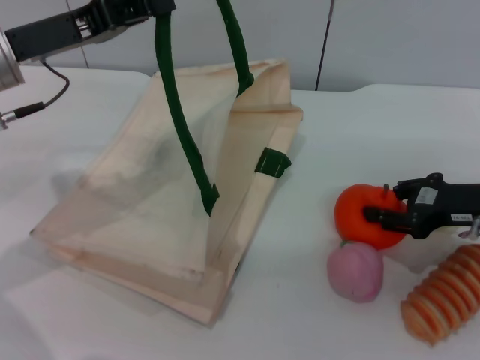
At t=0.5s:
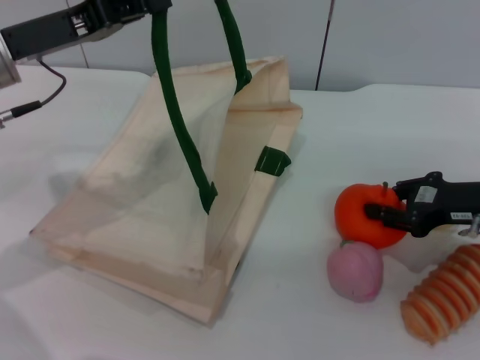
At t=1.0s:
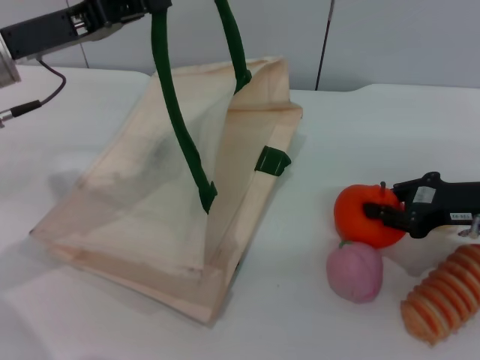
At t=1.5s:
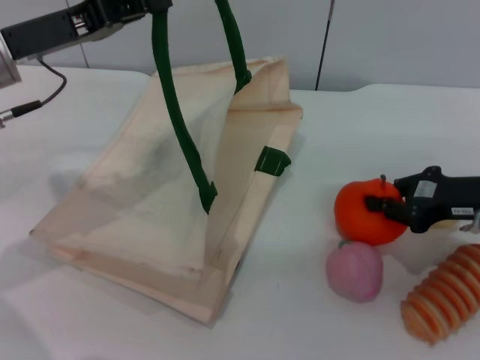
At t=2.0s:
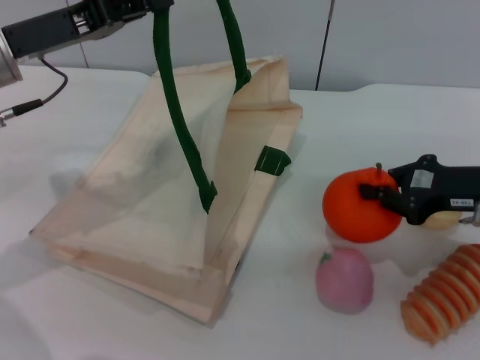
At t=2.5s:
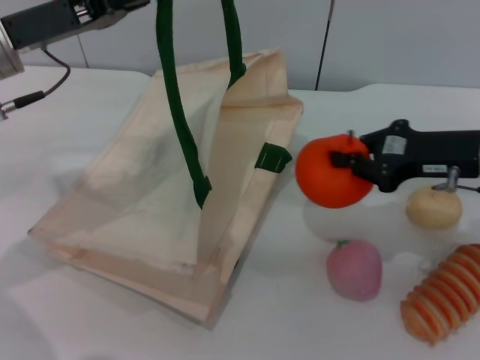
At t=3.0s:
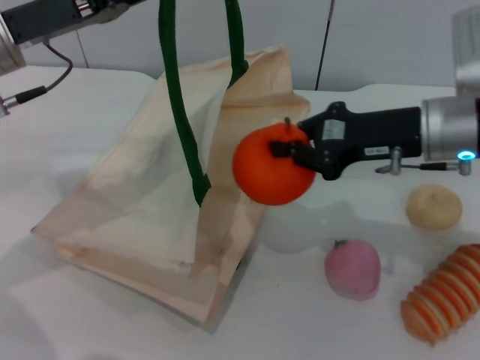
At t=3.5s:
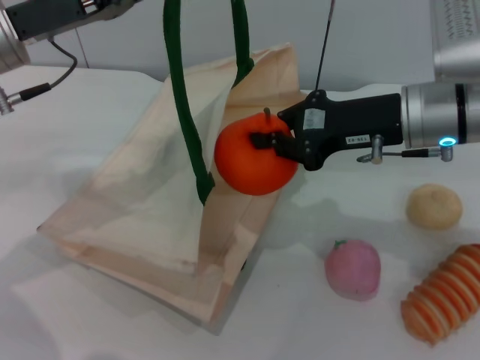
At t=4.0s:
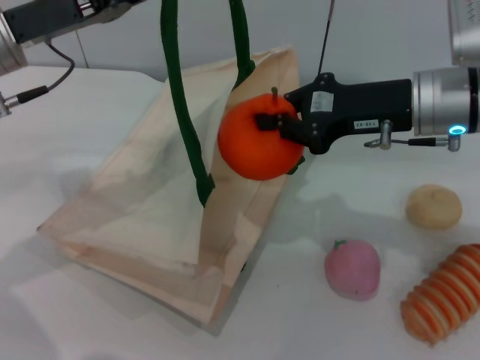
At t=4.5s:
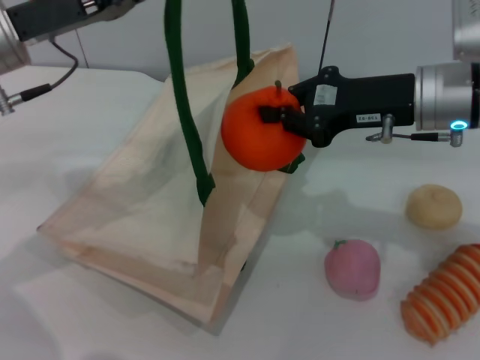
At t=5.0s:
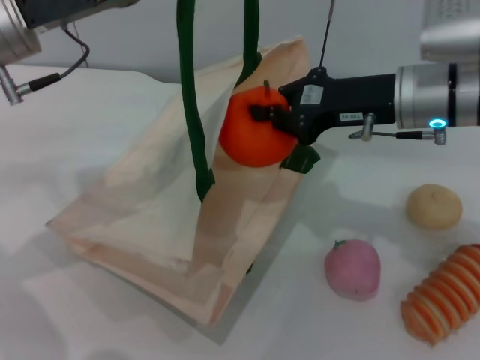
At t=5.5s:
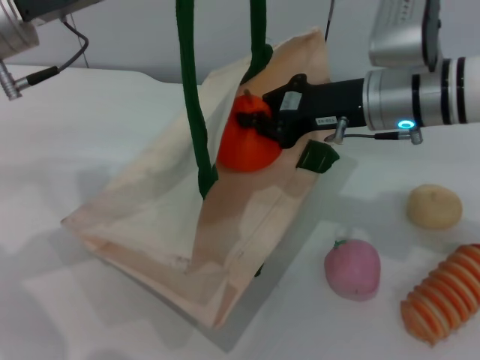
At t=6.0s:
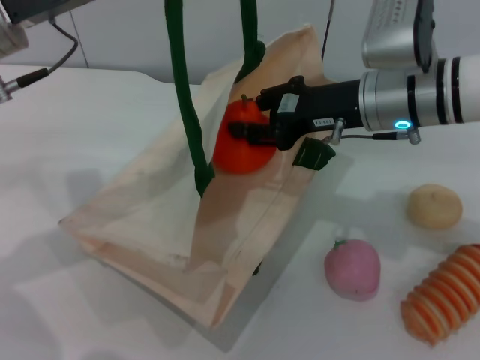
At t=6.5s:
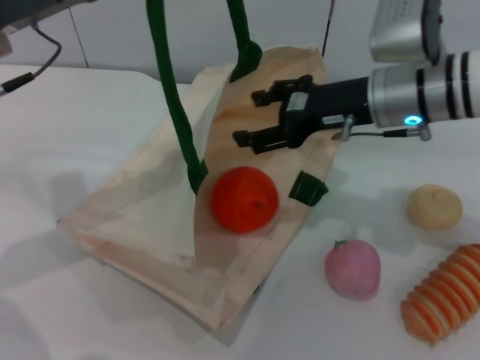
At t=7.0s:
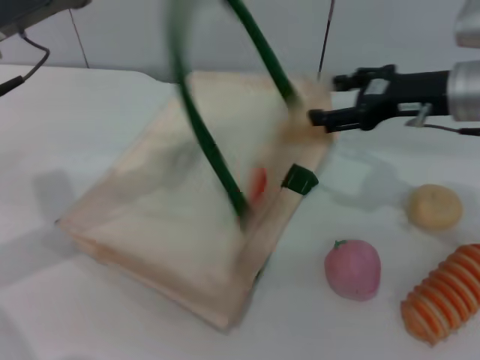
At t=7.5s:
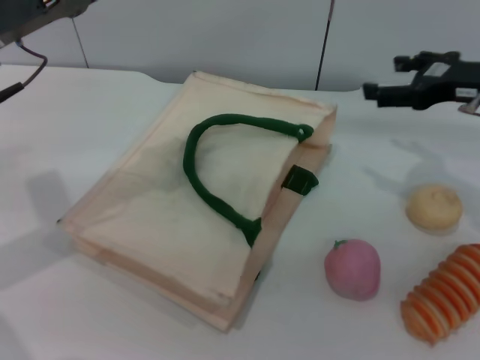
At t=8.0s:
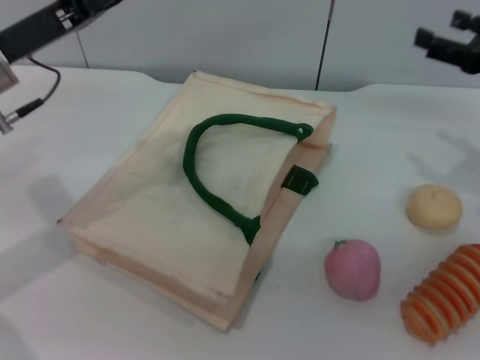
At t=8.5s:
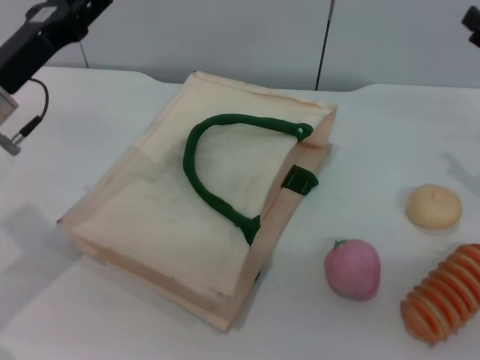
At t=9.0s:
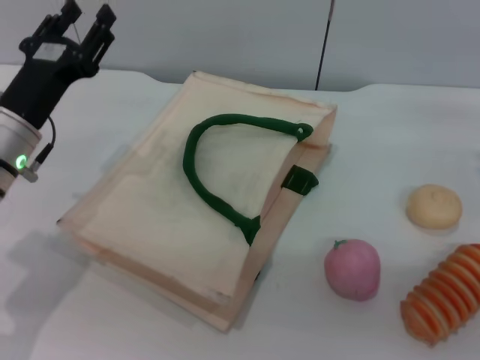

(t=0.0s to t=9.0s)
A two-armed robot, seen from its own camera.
Task of the whole recording: pick up the orange from the table and place it in the white handbag.
Step, t=0.0s - t=2.0s: Pick up the orange with the right gripper.
Step, t=2.5s - t=6.5s: Place the orange into the woven bag with the right gripper.
Step, t=7.0s - t=7.5s: Lower the woven bag with the left gripper to close it.
t=0.0s - t=2.0s: The right gripper closes.
t=2.0s - t=4.5s: The right gripper is displaced to the left and upward by some 10 cm.
t=4.5s - t=7.0s: The right gripper opens.
t=7.0s - t=9.0s: The left gripper is displaced downward by about 10 cm, and opens up, while the right gripper travels to the right, backward and downward by about 15 cm.
